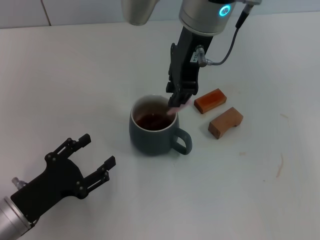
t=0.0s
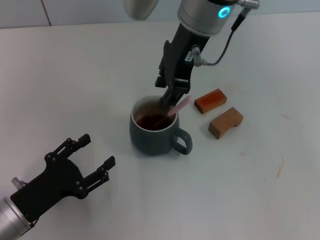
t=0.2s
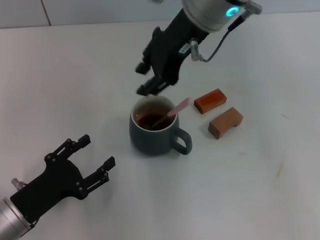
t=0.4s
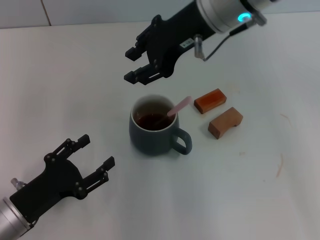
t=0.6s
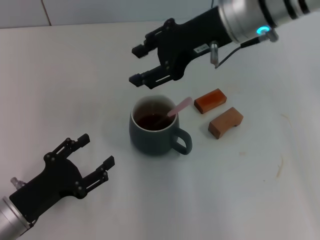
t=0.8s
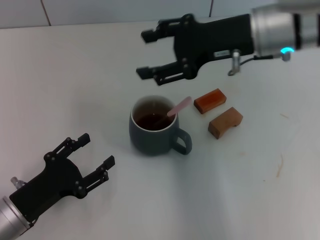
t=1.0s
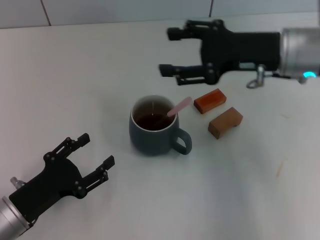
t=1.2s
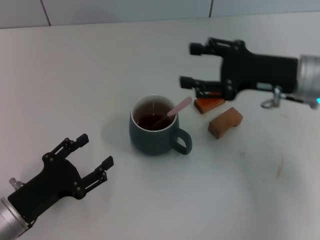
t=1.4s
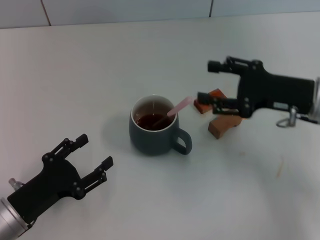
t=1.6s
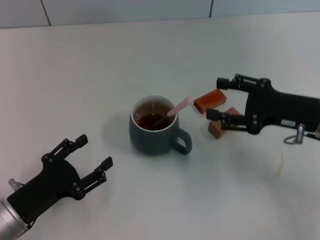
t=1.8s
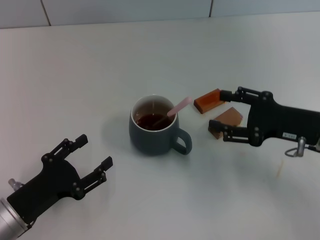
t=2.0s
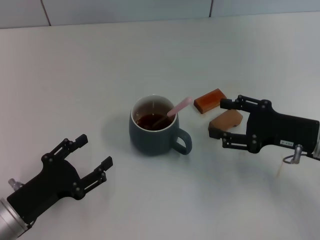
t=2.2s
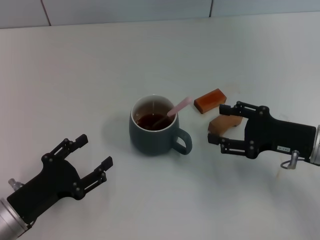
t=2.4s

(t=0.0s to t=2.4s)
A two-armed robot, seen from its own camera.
Task of the whole recording: Move the grey cup to the center, lift the pink spoon, stir it three times in the cup, and put the spoon into the cup.
t=0.0s - t=1.2s: The right gripper goes about 20 cm to the right and downward, and opens its fingers.
t=1.2s - t=2.4s: The right gripper moves downward, backward and to the right, about 15 cm.

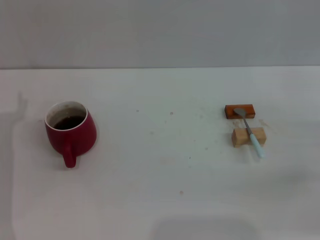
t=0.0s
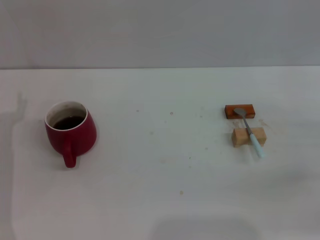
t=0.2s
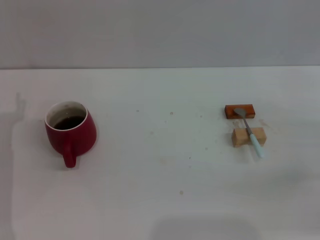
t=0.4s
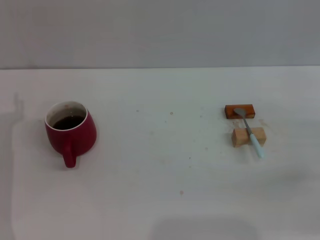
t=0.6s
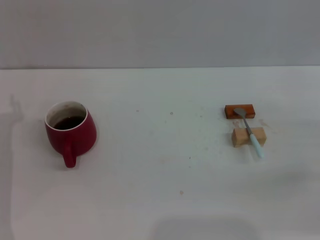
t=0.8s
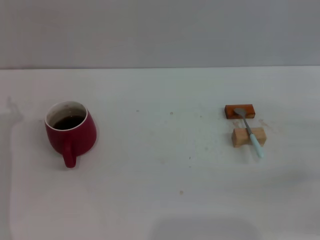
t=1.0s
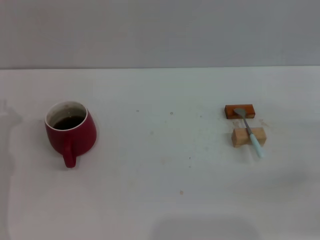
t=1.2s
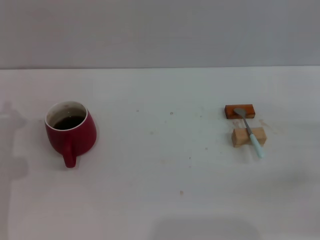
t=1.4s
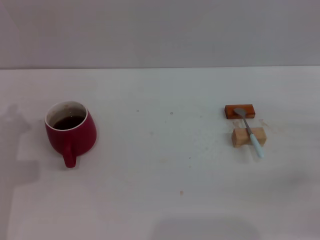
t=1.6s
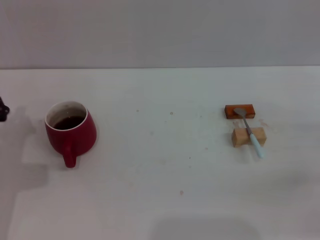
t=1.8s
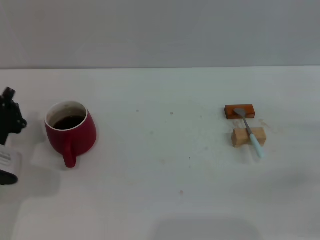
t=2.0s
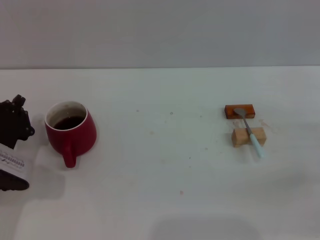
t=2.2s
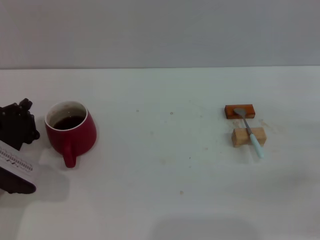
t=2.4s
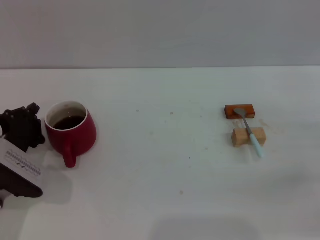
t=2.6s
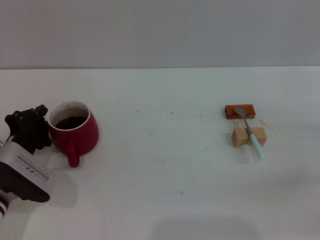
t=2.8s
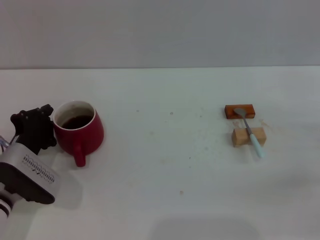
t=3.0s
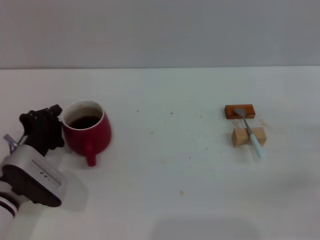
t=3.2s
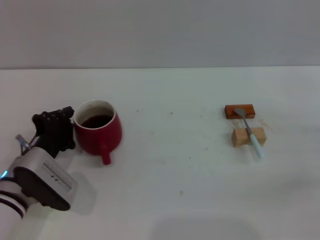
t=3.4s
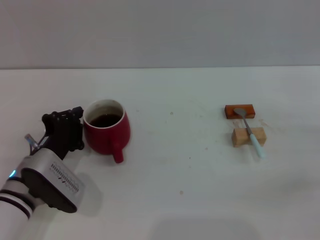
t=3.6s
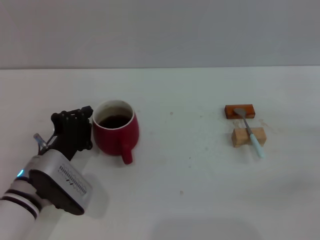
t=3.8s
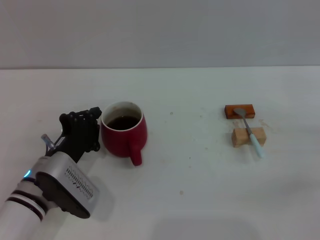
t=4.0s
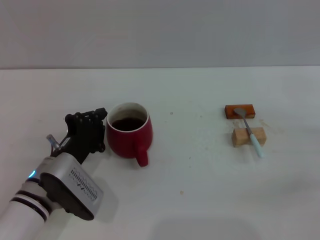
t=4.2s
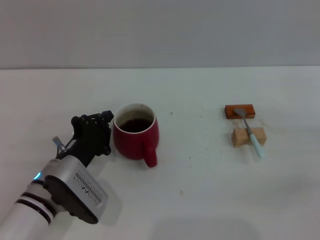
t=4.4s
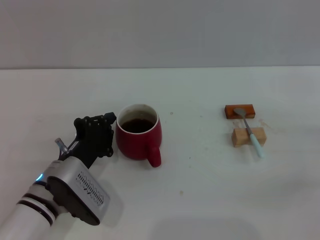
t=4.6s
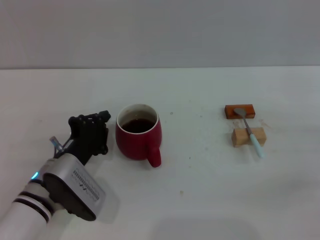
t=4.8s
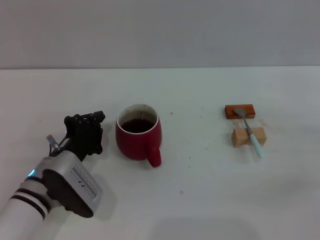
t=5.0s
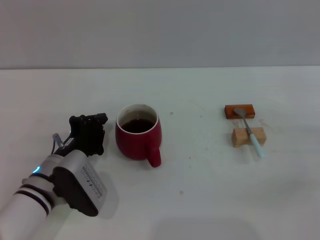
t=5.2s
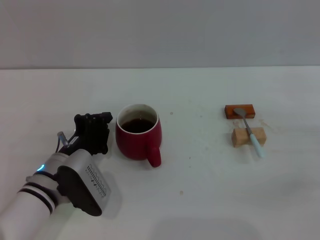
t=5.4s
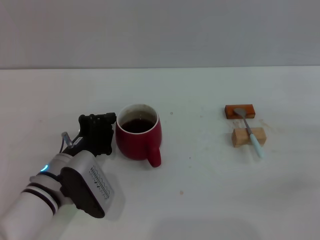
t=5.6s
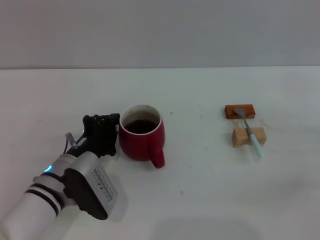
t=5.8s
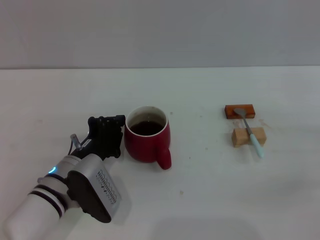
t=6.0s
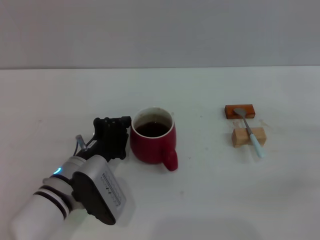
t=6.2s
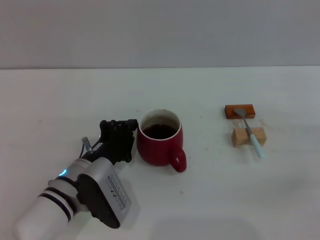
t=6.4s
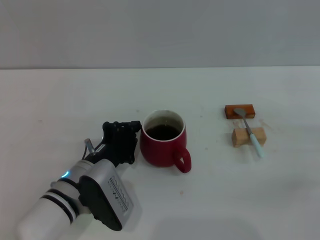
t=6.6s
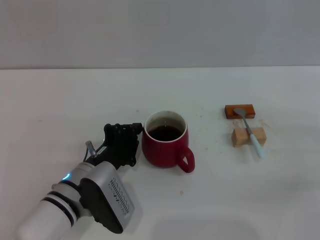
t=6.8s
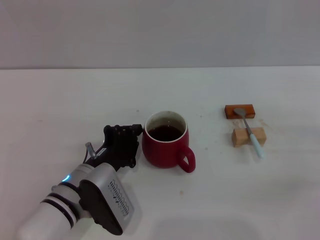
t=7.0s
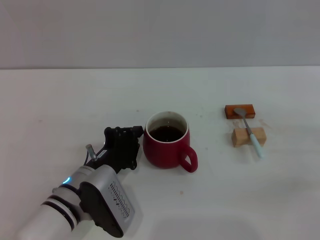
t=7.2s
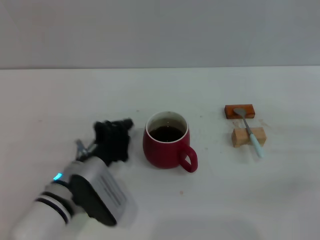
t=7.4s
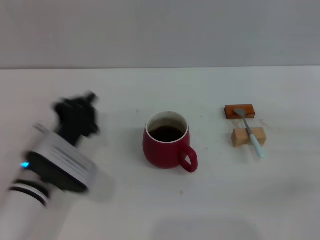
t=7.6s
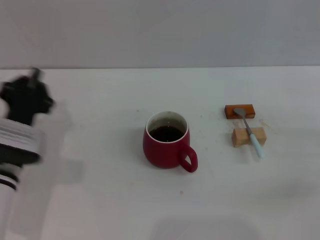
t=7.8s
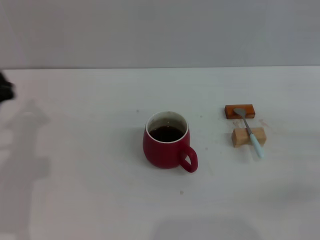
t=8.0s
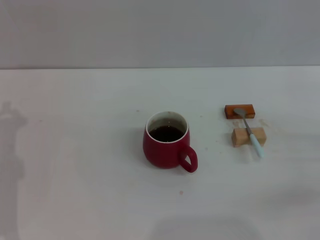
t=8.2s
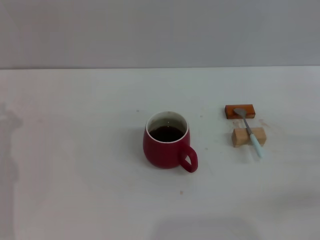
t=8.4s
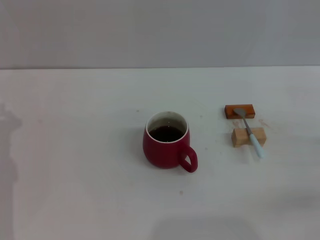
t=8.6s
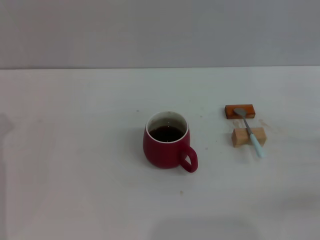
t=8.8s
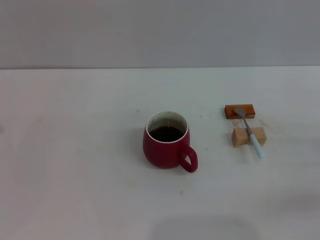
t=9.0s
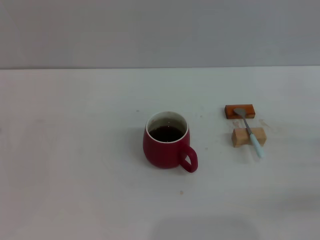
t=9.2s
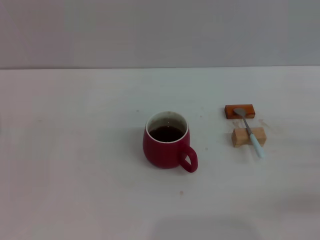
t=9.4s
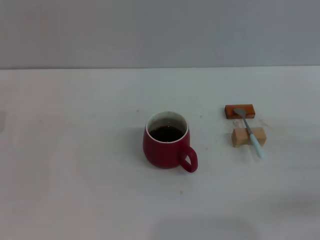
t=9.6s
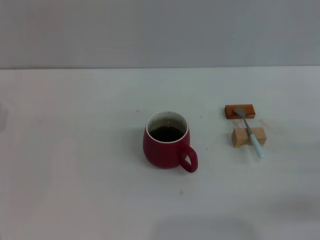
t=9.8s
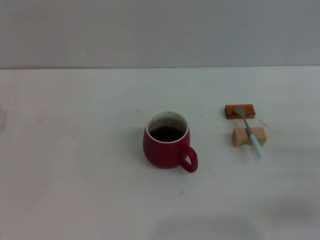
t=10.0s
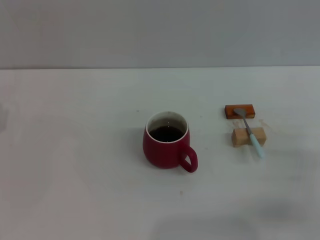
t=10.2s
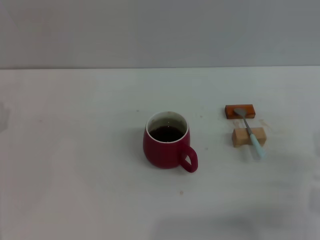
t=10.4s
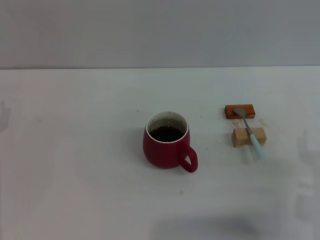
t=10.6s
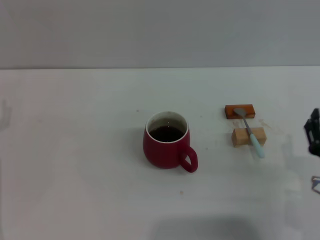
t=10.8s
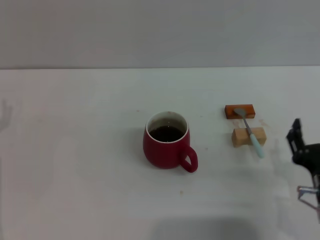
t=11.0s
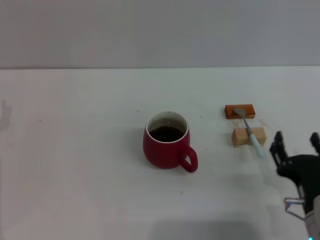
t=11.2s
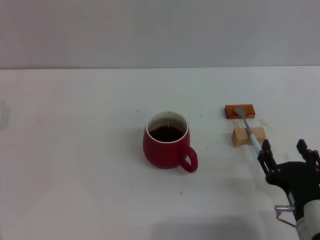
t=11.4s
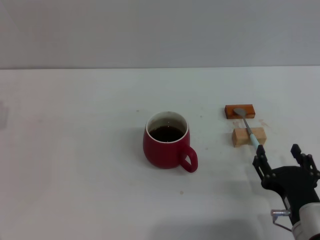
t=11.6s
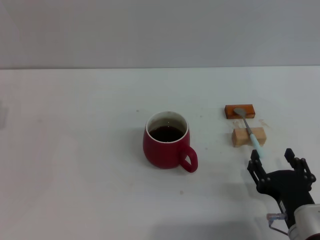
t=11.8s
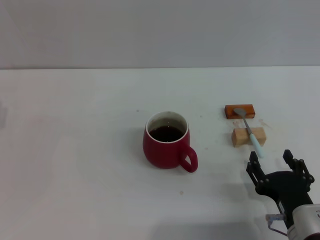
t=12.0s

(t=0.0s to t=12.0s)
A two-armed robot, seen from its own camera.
Task of the whole recording: Move the red cup to the center, lift the blue spoon, stir it three times in the cup, and put the spoon into the cup.
Step, t=0.0s - t=7.8s: Move the cup with coffee to the center of view with the left gripper.
t=1.6s - t=3.0s: The left gripper shifts by approximately 5 cm.
t=3.0s - t=4.4s: The left gripper goes some 5 cm to the right.
t=4.4s - t=6.0s: The grippers stay close to where they were, moving slightly.
t=7.6s - t=9.0s: The left gripper heads to the left, covering about 15 cm.
t=10.4s - t=12.0s: The right gripper goes roughly 10 cm to the left.

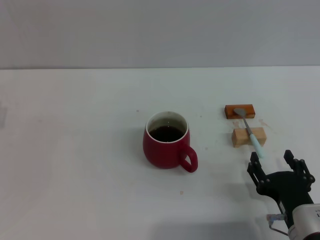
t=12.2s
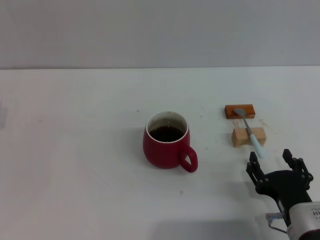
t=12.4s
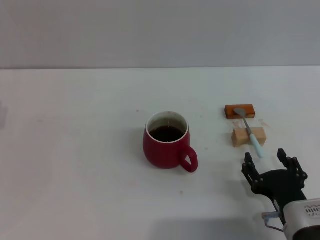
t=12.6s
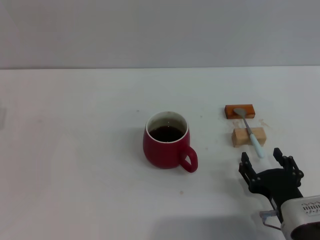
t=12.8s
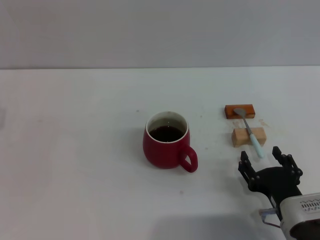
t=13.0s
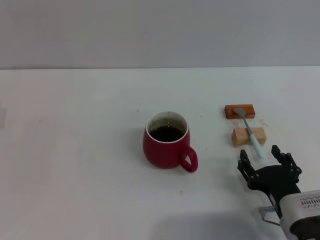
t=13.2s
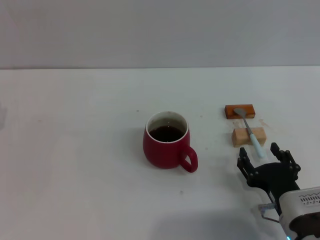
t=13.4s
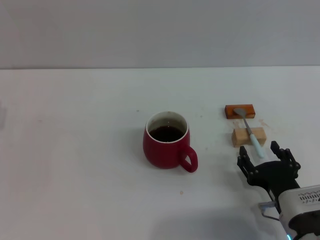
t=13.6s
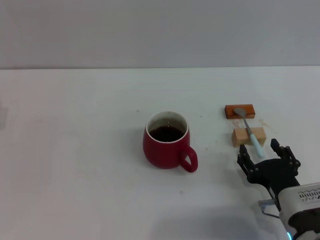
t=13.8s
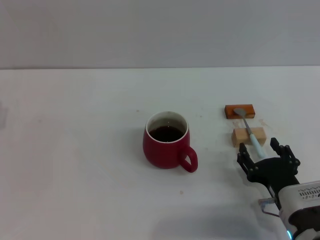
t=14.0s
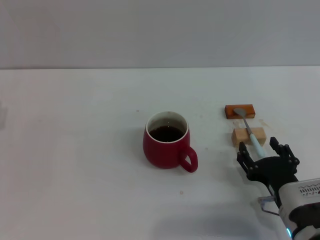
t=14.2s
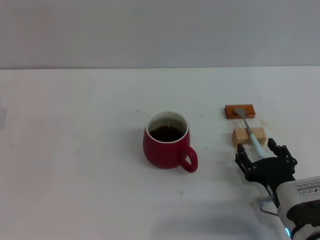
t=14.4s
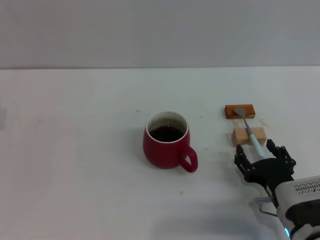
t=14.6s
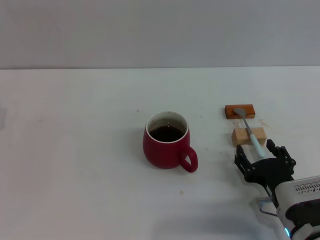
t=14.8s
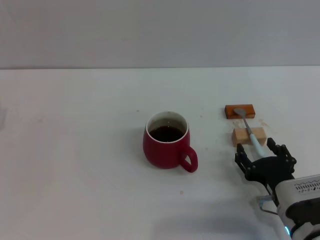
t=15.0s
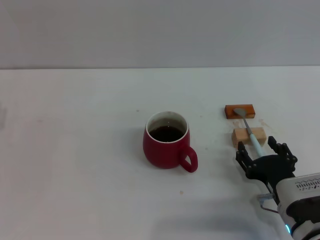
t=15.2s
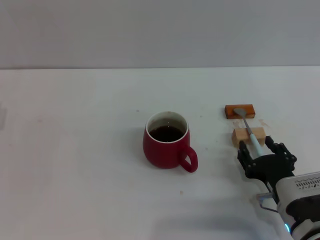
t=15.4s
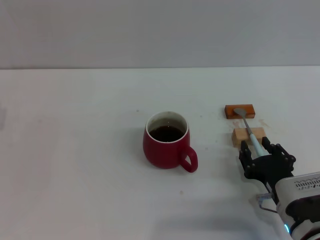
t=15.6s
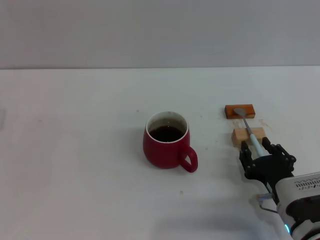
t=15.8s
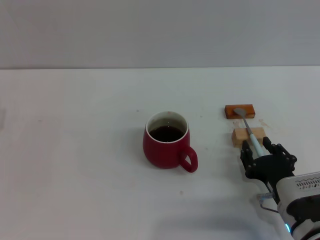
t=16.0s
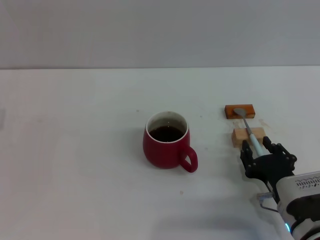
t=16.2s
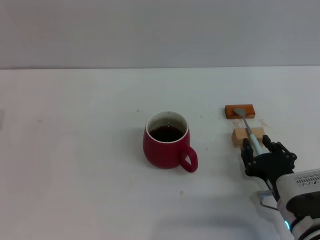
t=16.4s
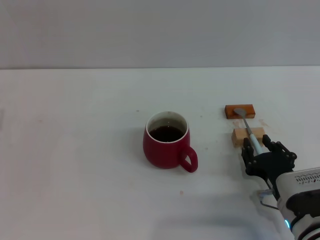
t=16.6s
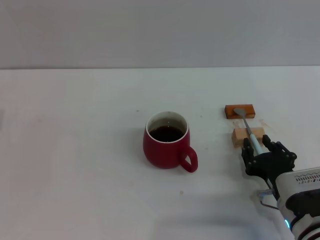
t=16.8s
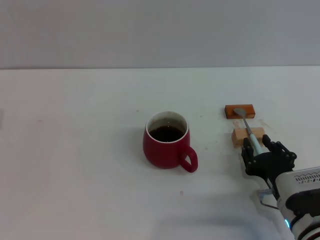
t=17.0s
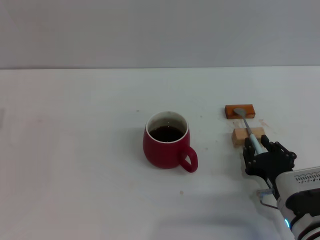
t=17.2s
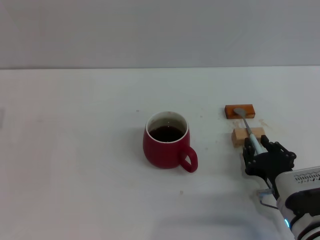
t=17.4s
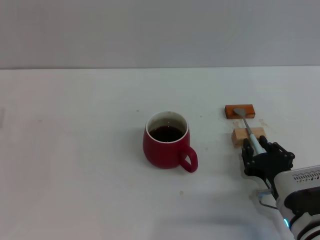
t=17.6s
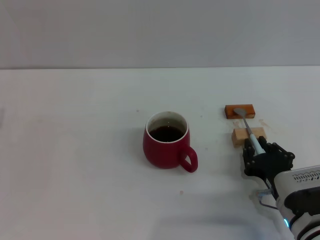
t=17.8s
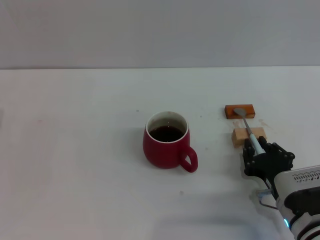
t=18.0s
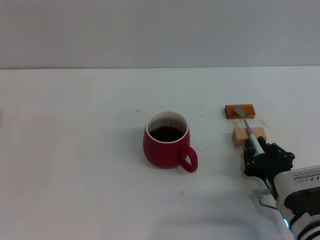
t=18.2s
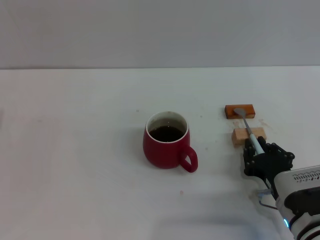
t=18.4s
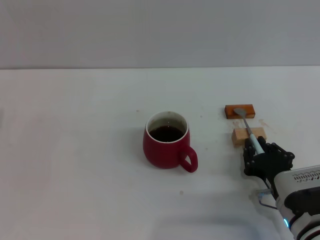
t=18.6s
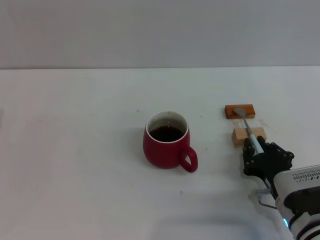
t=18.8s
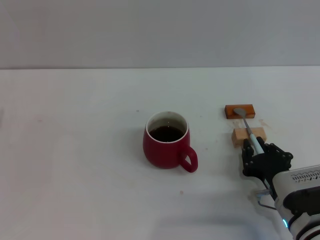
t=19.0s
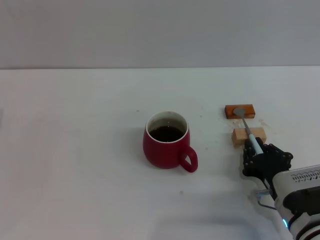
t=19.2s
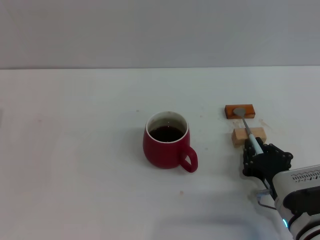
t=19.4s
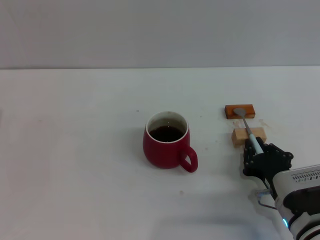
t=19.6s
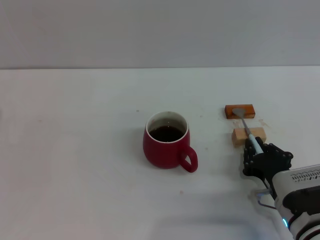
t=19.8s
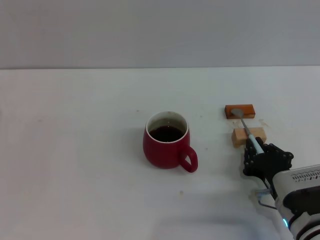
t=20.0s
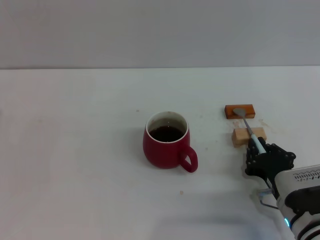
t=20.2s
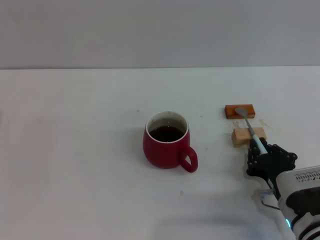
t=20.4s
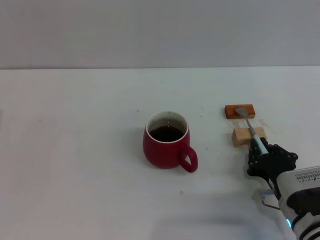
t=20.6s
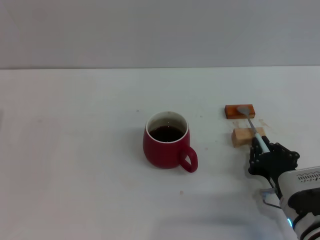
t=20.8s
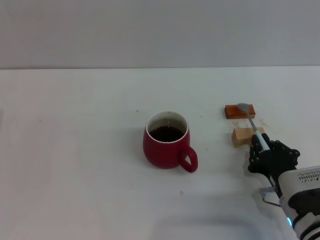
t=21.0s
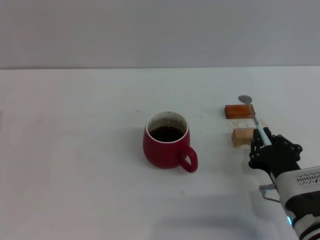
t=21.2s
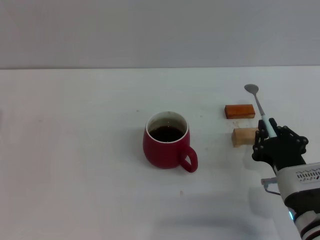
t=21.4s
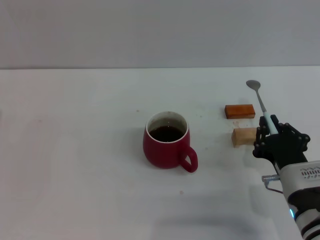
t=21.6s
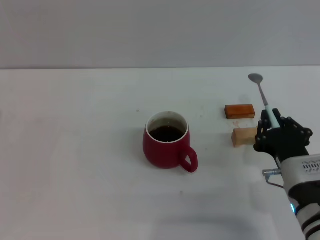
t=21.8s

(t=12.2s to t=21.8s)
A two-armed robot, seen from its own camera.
Task of the whole recording: Move the red cup to the center, lift the blue spoon, stir it three times in the cup, and put the spoon into the cup.
Step, t=12.2s - t=21.6s: Pick up the spoon with the right gripper.
t=12.2s - t=13.8s: The grippers move only a little.
t=13.8s - t=15.4s: Both grippers stay put.
t=15.4s - t=17.0s: The right gripper closes its fingers.
t=17.0s - t=20.2s: Both grippers stay about where they are.
t=20.2s - t=21.8s: The right gripper heads upward, covering approximately 5 cm.
